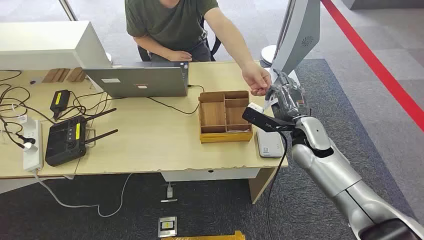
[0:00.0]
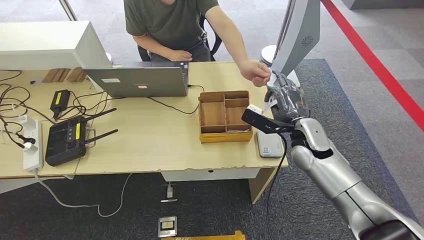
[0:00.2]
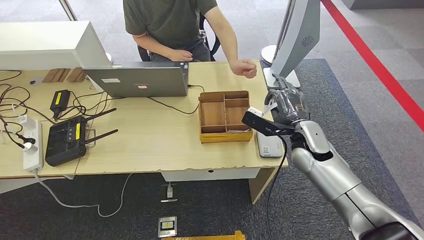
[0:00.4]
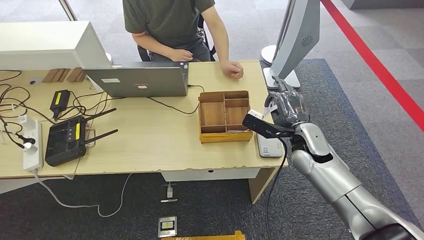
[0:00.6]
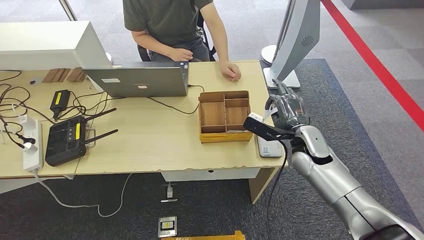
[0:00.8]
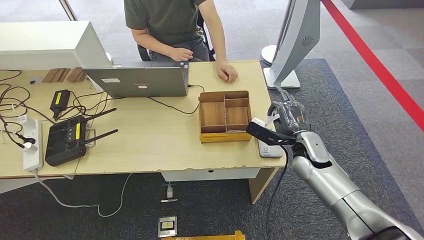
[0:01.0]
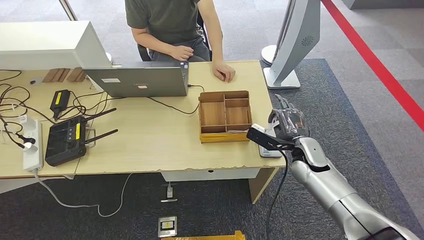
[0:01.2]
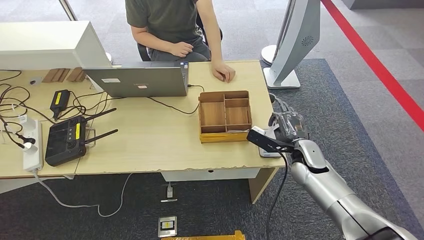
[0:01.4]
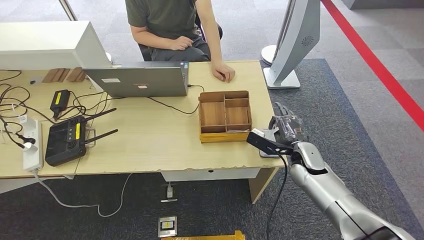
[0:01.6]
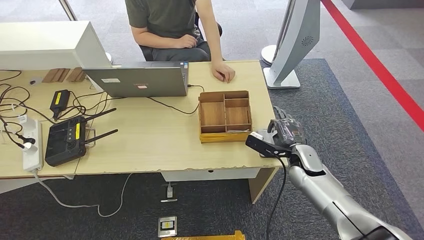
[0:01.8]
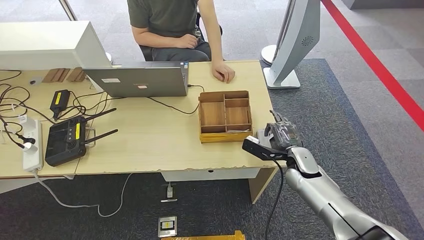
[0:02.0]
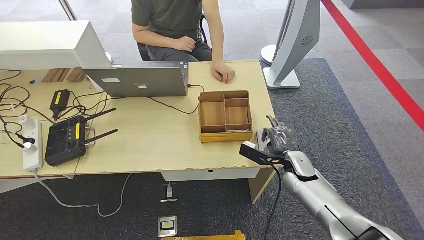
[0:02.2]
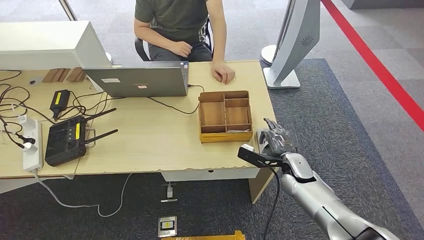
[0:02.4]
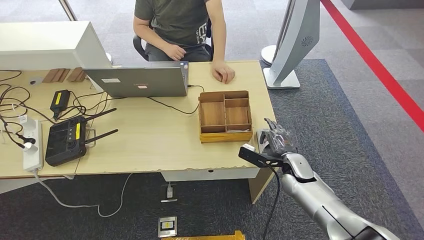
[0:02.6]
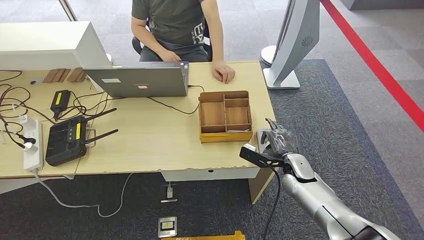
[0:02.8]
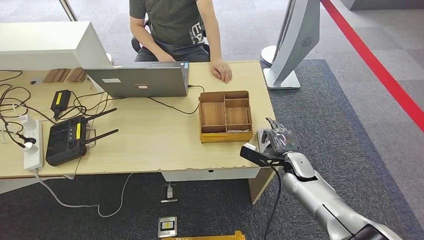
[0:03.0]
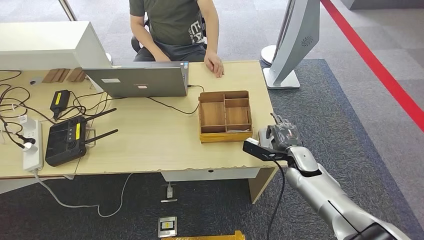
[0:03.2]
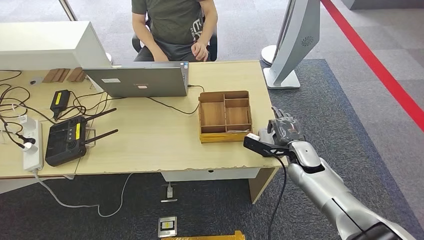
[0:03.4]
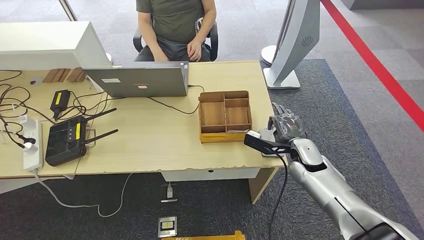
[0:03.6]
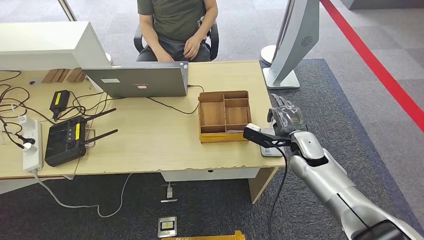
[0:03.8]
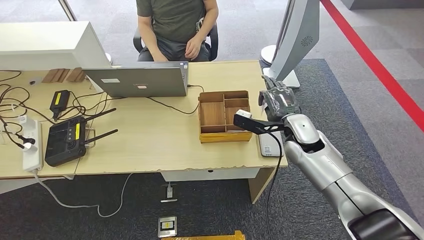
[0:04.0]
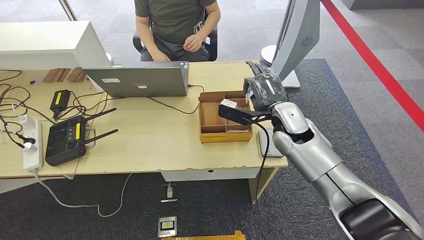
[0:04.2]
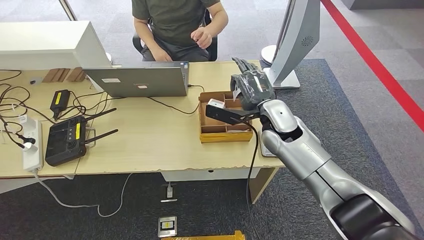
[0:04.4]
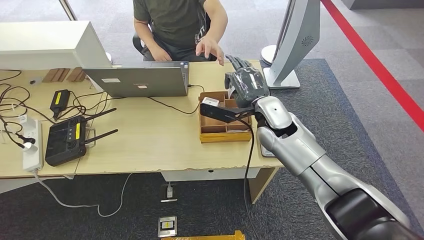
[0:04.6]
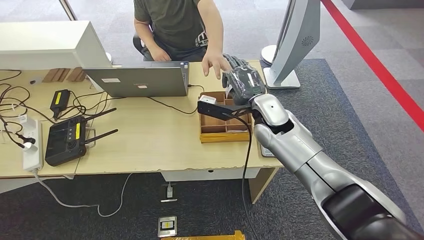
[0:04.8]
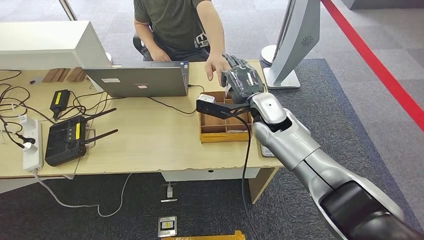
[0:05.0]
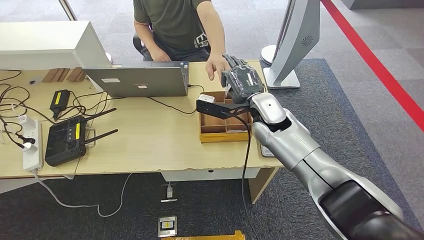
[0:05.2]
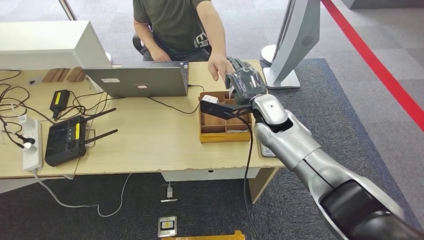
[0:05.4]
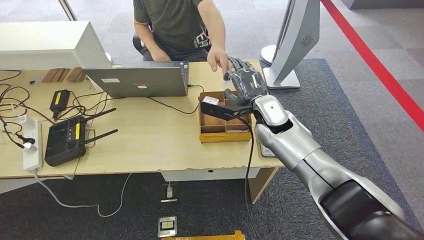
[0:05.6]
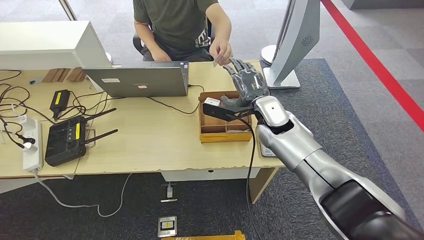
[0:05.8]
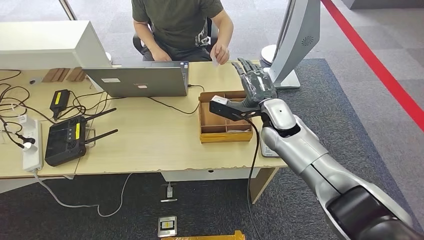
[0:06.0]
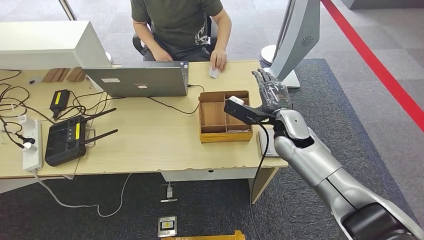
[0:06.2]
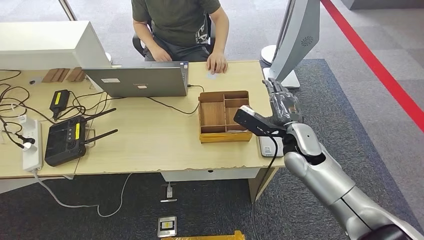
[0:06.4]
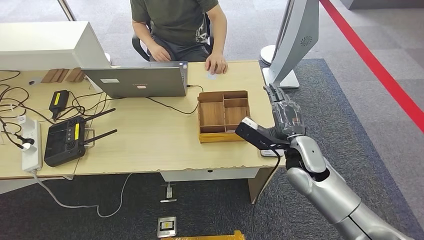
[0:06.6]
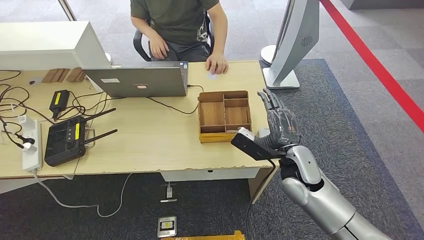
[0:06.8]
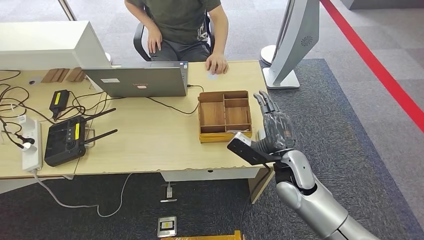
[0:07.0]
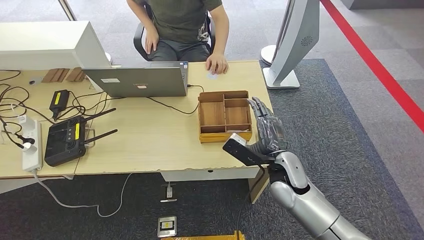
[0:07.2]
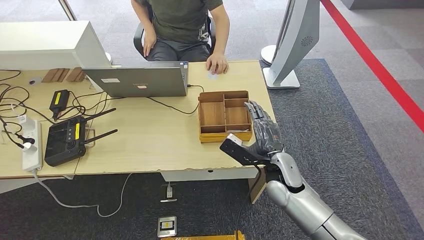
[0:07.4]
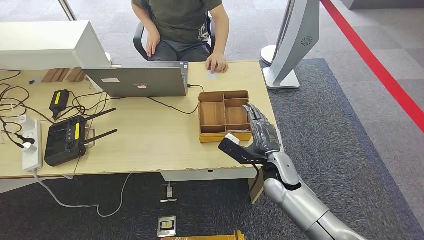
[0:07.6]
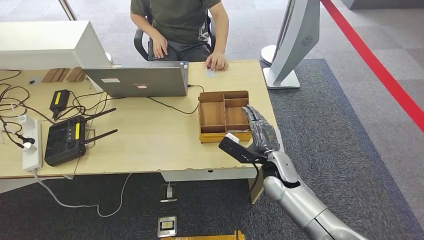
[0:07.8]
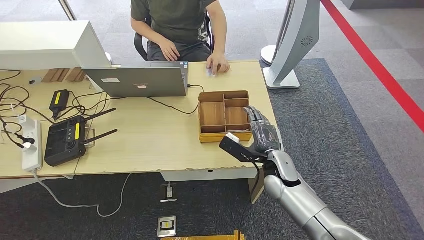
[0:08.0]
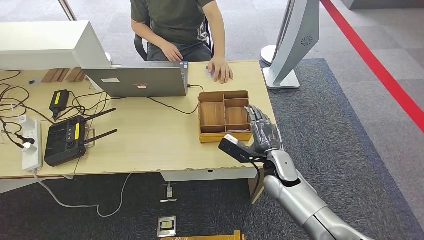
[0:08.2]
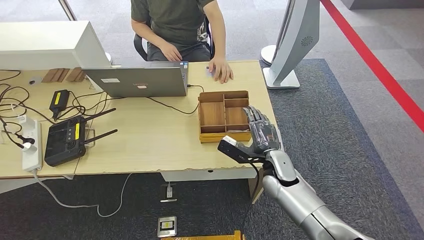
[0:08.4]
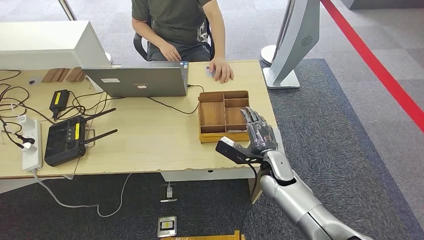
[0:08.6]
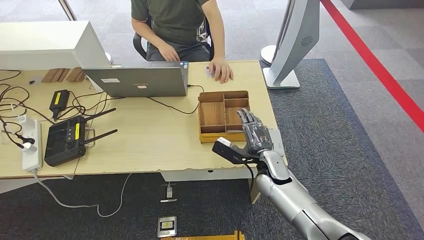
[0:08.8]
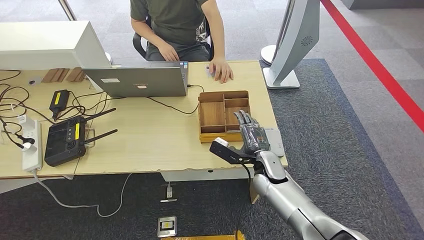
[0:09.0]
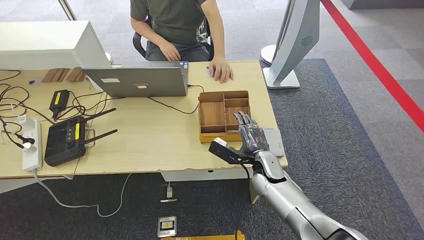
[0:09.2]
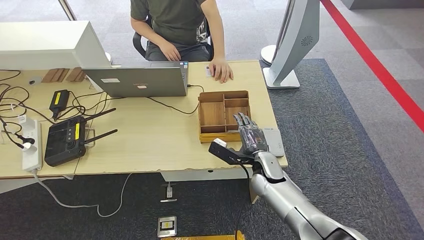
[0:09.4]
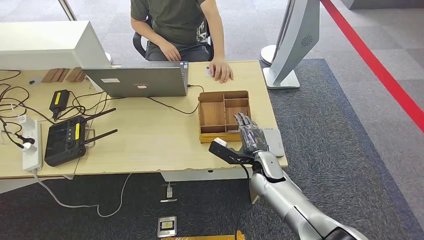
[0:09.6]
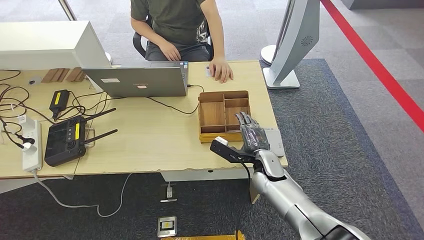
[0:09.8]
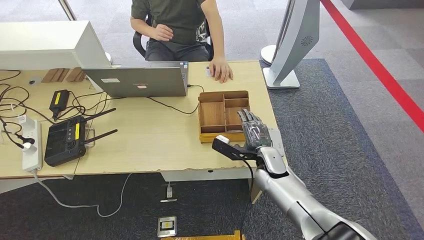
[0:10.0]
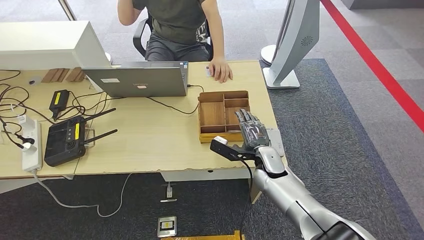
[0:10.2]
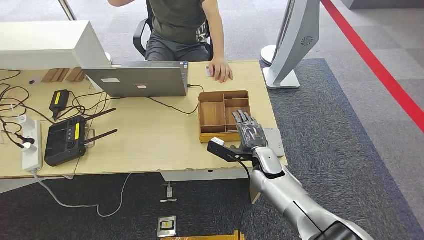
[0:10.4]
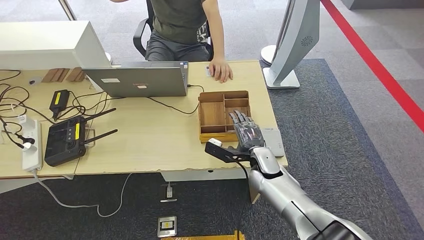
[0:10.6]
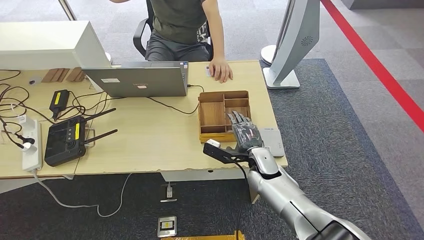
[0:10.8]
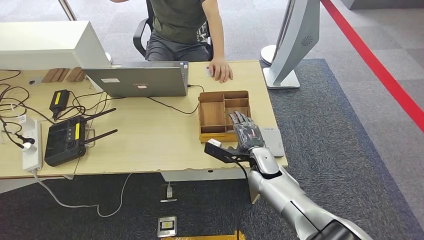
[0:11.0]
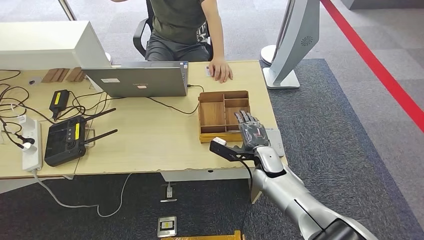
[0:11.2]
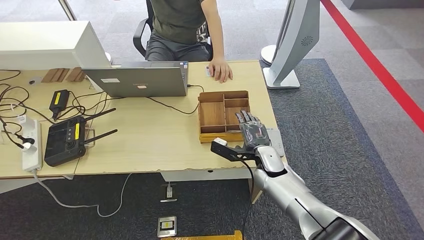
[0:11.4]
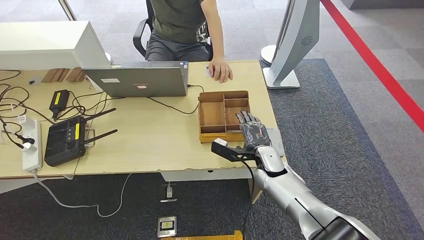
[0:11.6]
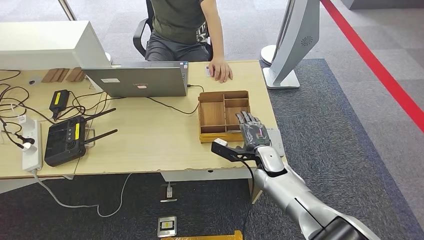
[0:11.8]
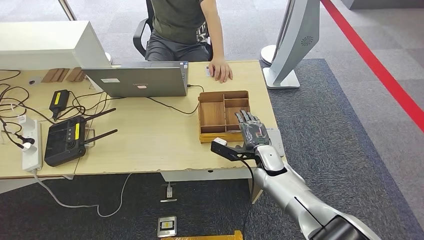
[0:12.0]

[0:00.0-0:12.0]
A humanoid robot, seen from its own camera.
Step, 0:00.0 to 0:01.2: Take the ID card from the person's hand.
Step, 0:01.4 to 0:05.4: Place the ID card on the card reader.
Step, 0:05.6 to 0:08.0: Hand the ID card to the person.
0:01.6 to 0:03.0: The hands stay close to where they were, moving slightly.
0:03.0 to 0:04.4: The right hand shifts roughly 20 cm upward and to the left.
0:04.4 to 0:06.0: The hands stay close to where they were, moving slightly.
0:06.0 to 0:07.6: The right hand is displaced backward and downward by approximately 15 cm.
0:07.6 to 0:10.4: The hands move only a little.
0:10.4 to 0:12.0: The hands move only a little.

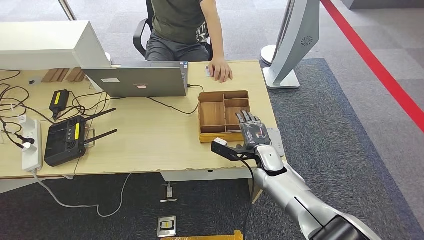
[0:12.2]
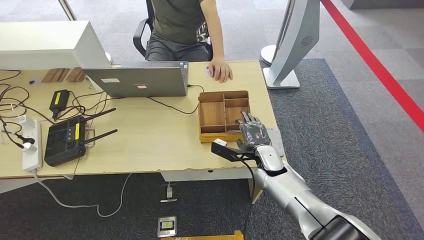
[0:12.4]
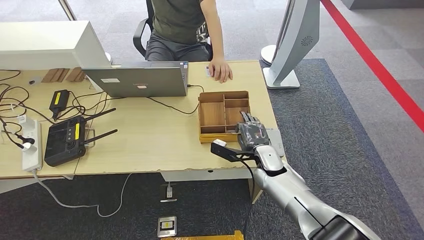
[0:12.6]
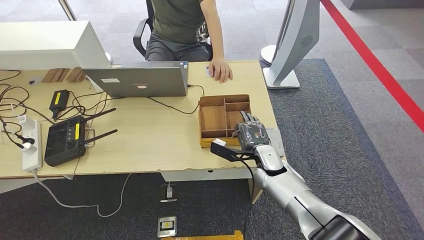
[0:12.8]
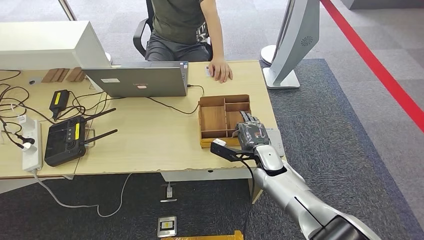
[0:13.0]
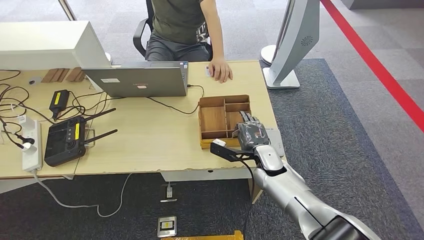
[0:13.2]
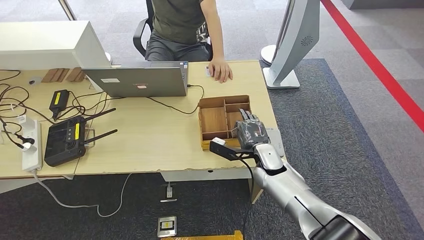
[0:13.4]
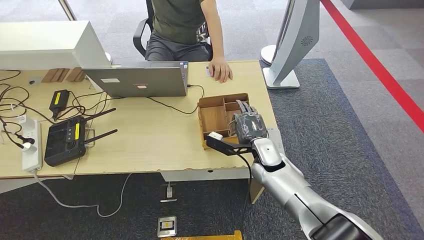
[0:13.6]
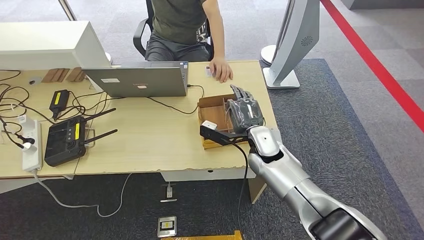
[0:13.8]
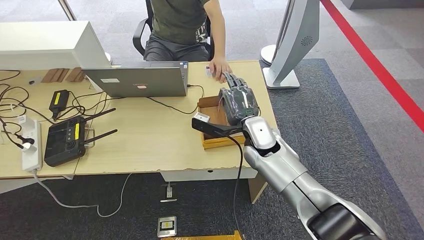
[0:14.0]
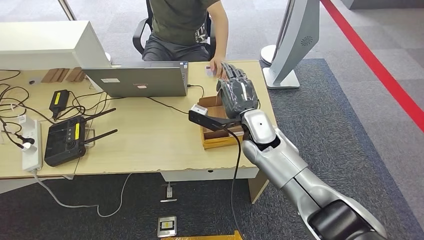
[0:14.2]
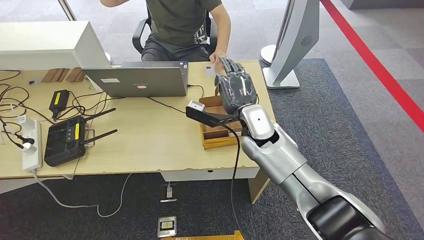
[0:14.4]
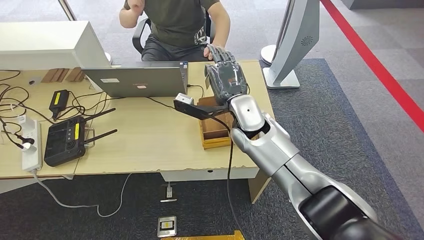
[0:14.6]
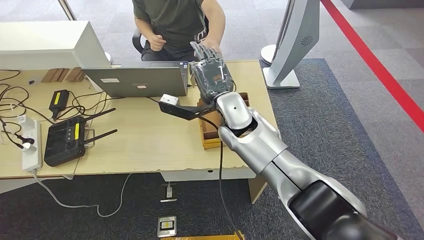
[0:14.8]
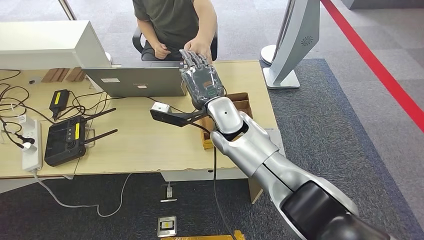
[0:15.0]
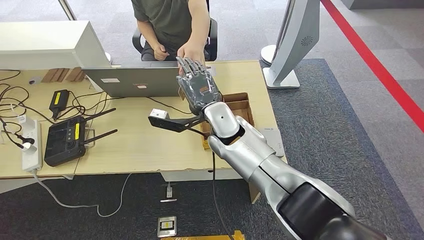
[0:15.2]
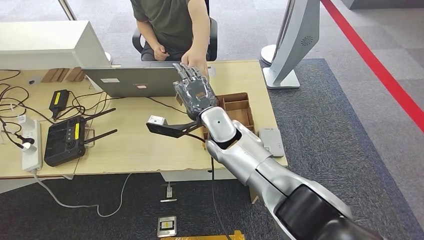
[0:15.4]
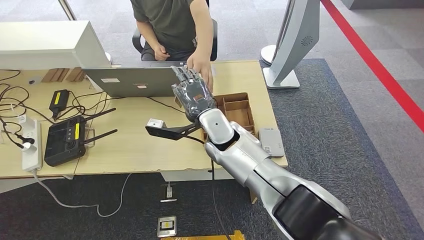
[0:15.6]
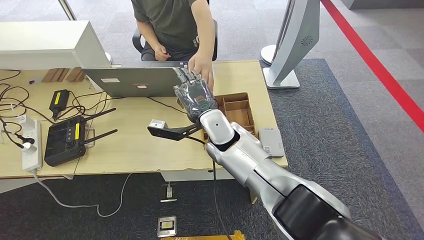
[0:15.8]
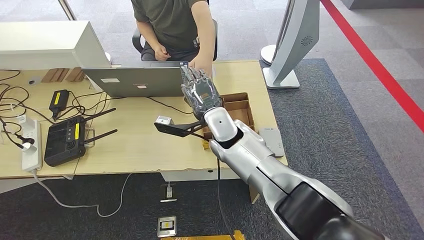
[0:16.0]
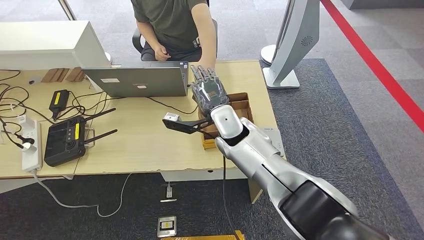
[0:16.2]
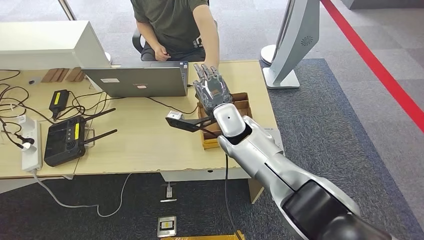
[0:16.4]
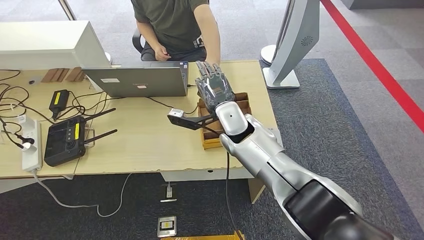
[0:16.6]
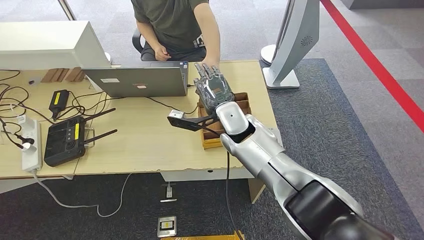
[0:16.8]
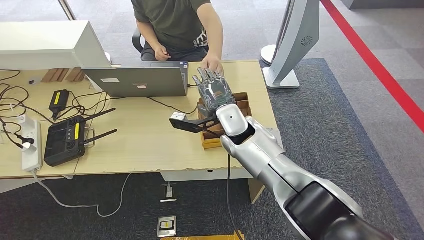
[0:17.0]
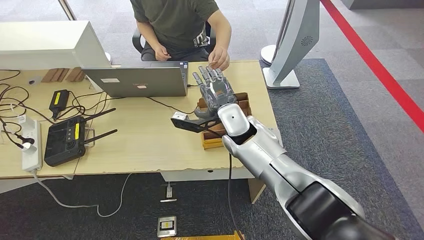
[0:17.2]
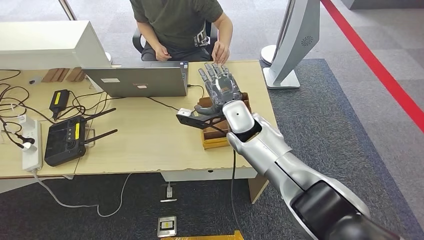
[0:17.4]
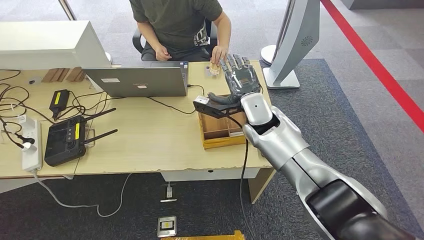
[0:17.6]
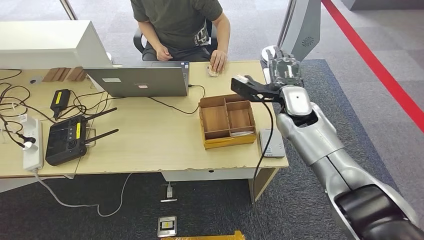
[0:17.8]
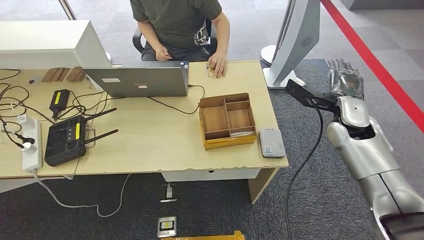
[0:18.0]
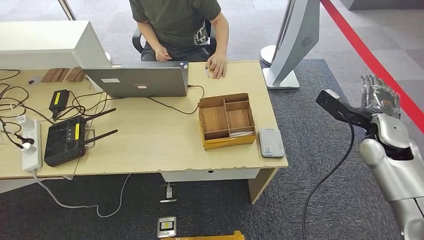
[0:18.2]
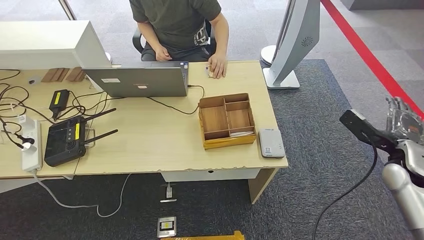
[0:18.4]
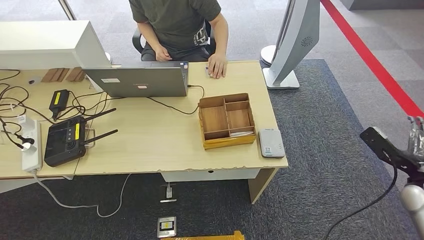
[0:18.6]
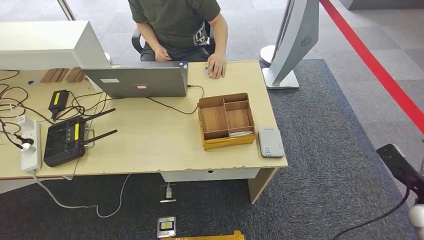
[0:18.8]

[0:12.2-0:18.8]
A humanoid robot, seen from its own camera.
Step, 0:12.2 to 0:14.2: Pick up the room key from the key card box.
0:12.2 to 0:13.8: The right hand travels upward by roughly 5 cm.
0:13.8 to 0:15.4: The right hand shifts approximately 15 cm to the left and upward.
0:15.4 to 0:17.2: The hands stay close to where they were, moving slightly.
0:17.2 to 0:18.8: The right hand goes some 50 cm to the right and backward.
